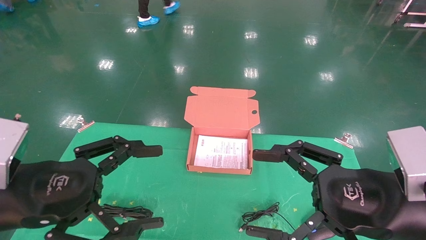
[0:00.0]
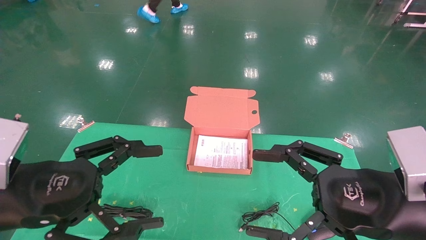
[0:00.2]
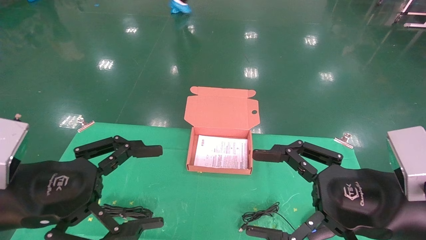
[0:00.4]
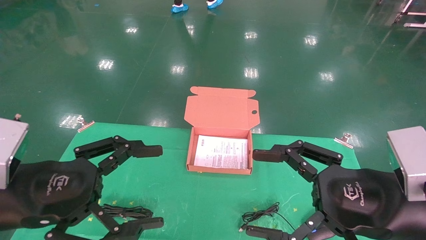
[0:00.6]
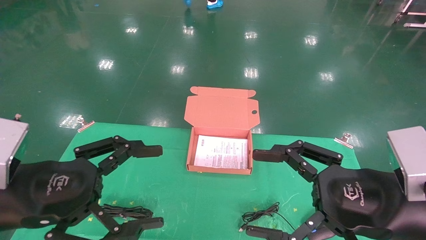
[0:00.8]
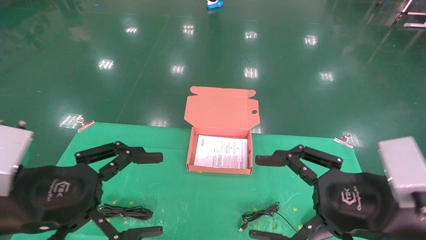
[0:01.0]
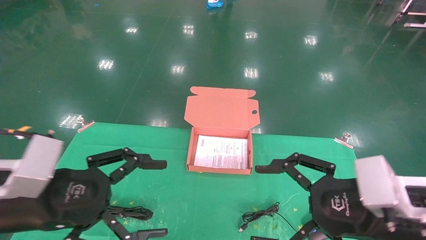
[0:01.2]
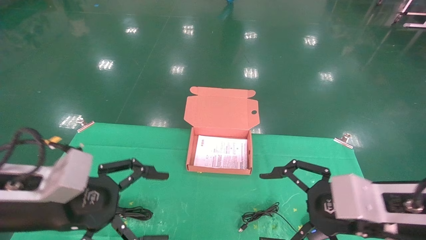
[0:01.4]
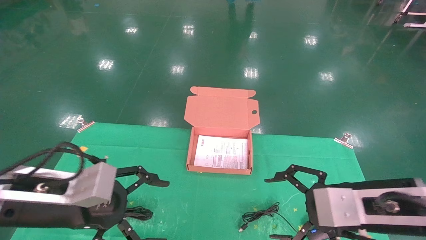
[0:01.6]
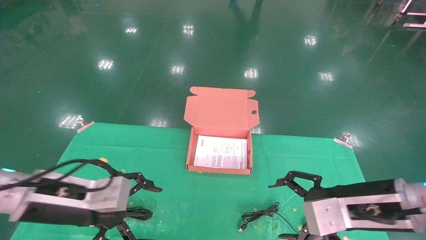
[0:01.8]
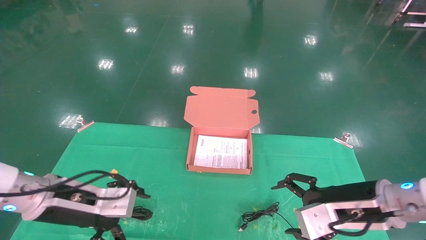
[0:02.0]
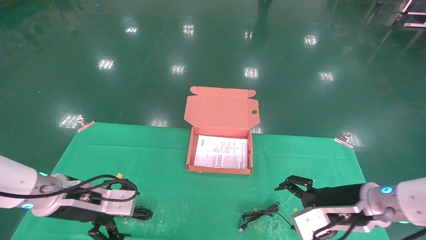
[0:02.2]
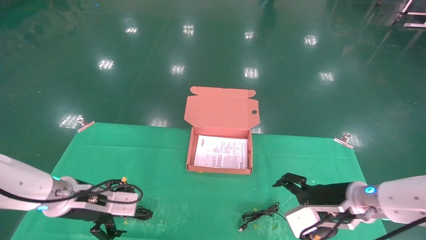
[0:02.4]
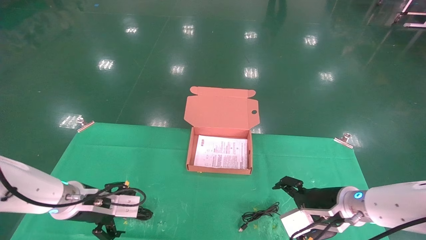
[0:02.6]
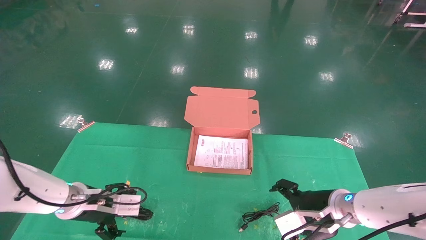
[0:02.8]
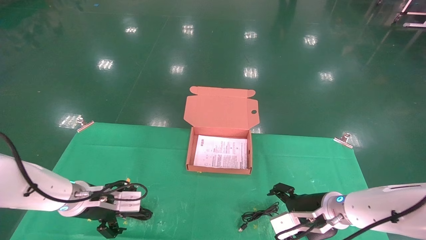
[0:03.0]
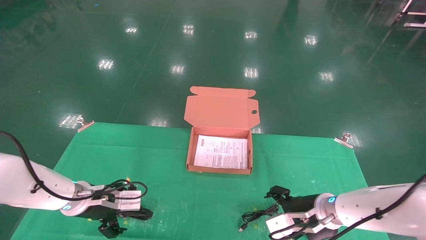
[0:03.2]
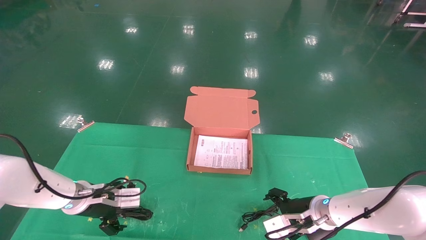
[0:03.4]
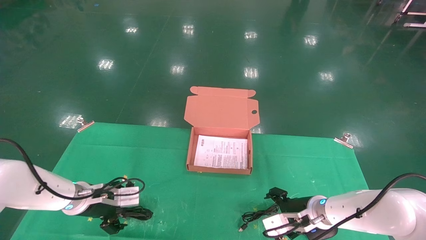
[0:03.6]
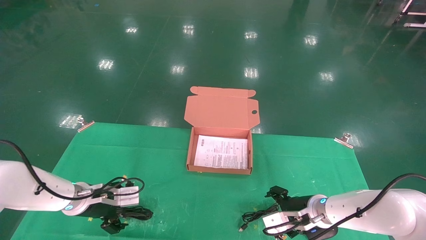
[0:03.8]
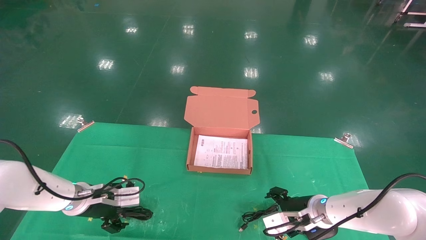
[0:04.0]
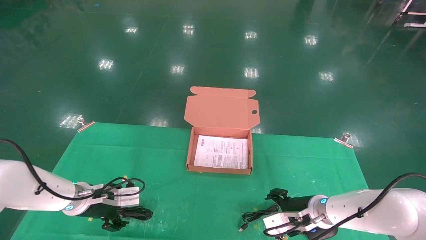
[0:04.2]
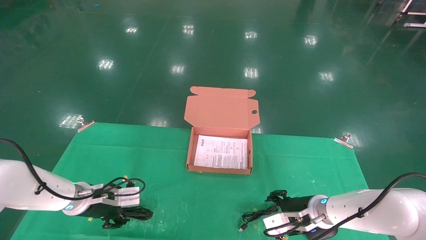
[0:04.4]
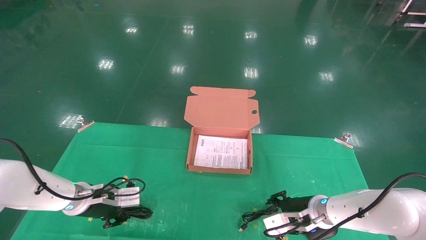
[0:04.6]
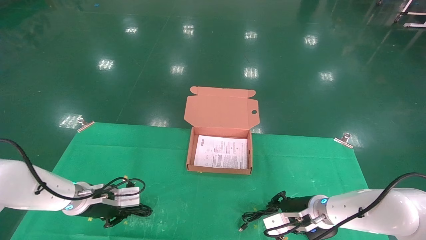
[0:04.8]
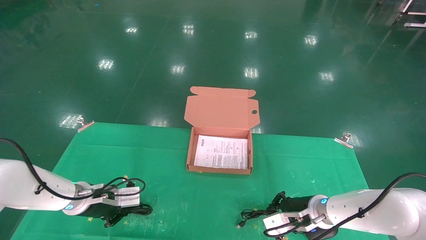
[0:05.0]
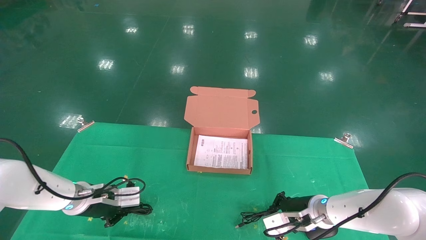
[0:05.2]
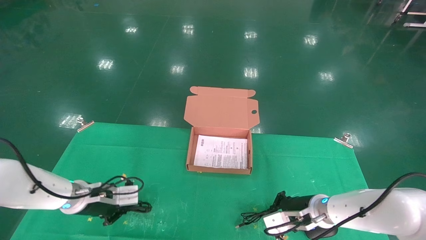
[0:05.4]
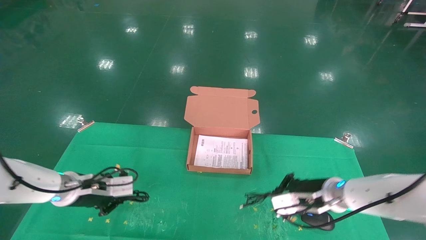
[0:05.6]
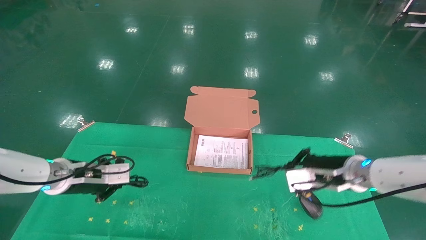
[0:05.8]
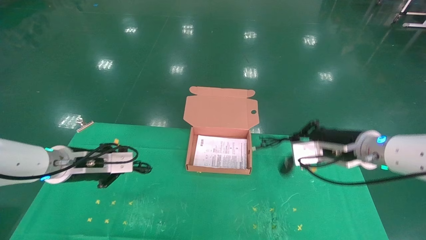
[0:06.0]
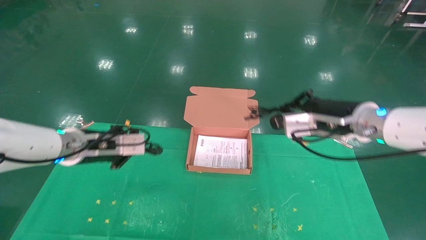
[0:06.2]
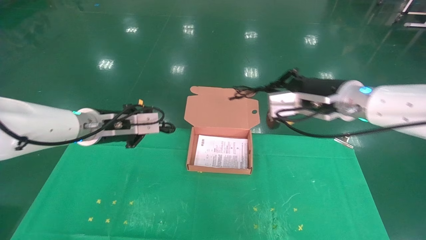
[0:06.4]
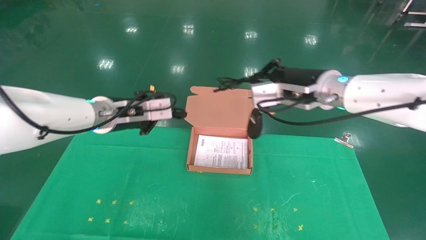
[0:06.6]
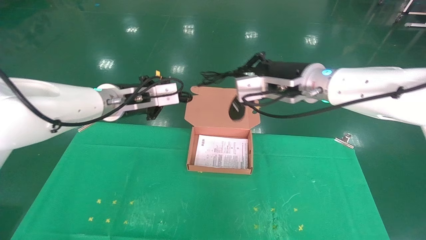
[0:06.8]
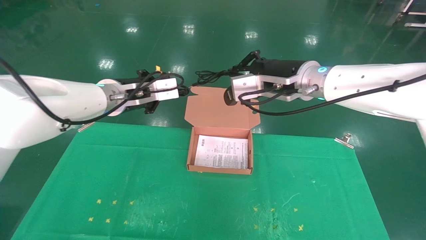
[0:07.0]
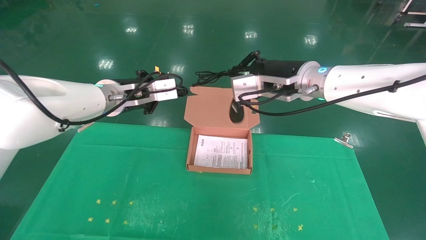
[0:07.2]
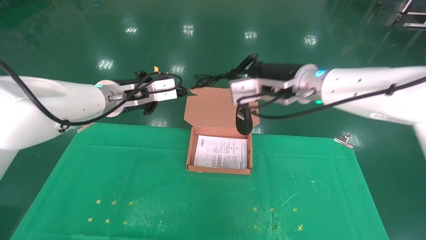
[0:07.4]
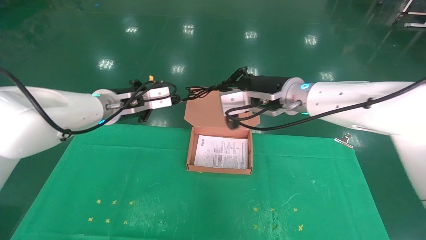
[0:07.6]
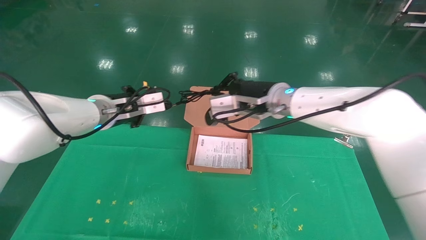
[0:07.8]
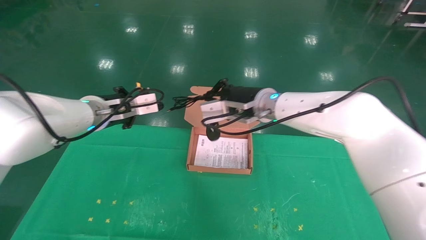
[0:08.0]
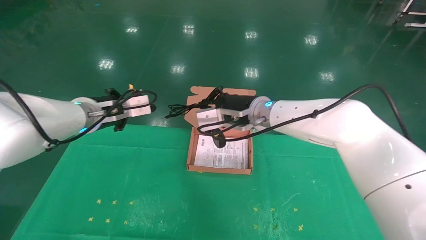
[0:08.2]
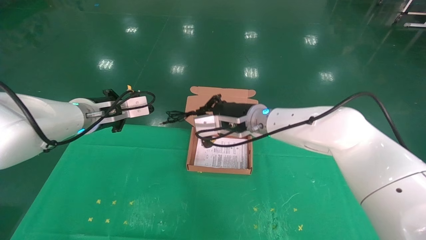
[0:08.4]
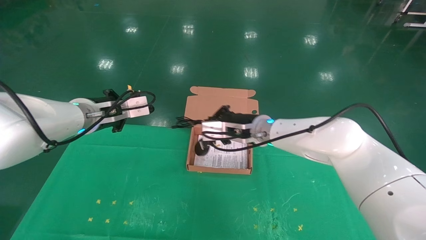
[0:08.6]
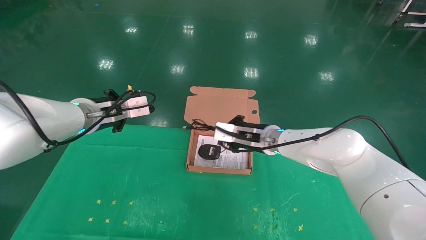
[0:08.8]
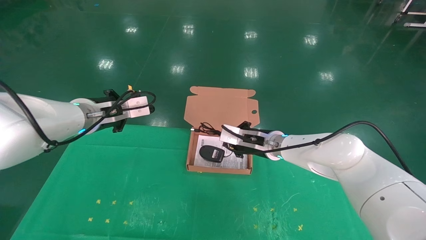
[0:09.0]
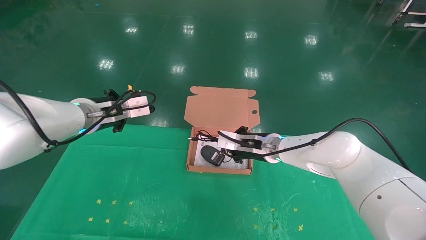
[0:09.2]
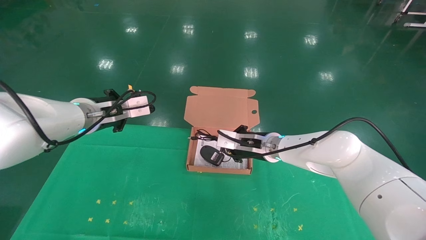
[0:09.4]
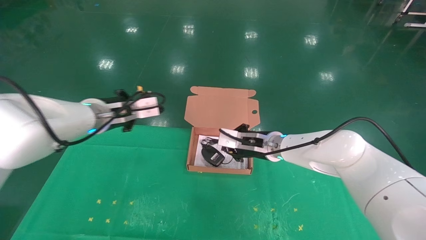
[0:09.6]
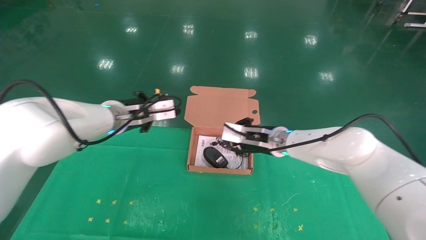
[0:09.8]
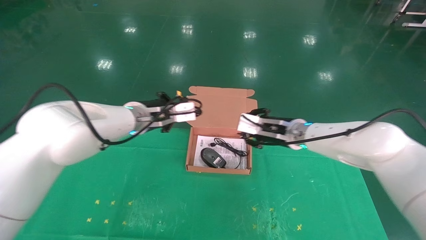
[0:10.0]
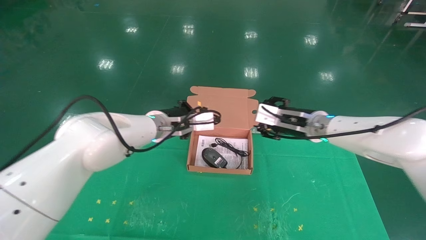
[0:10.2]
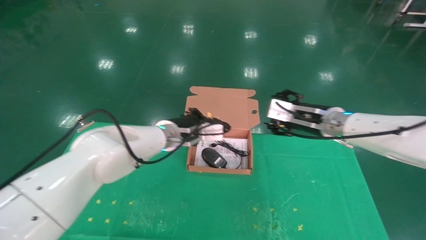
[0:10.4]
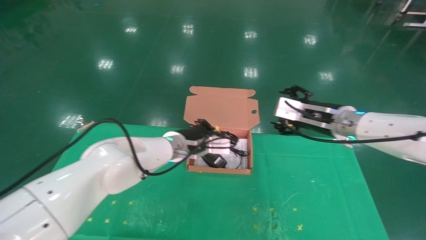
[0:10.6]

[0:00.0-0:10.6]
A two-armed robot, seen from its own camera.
Task of the whole recording: grasp data cable left put into box grasp mouse right put into box.
Step, 0:01.2 to 0:05.0: Grab and pick up both the mouse and power cord from the accessory packaging area at the same time.
0:00.0 to 0:01.6: The two grippers go some 5 cm forward.
0:01.6 to 0:03.0: The grippers both shift forward and downward by roughly 15 cm.
0:03.0 to 0:04.6: The left gripper closes; the right gripper ends up approximately 5 cm from where it was, and closes.
0:04.6 to 0:06.0: The right gripper heads upward, covering some 15 cm, and closes up, while the left gripper travels upward by approximately 10 cm, and closes up.
0:06.0 to 0:07.6: The right gripper heads to the left and upward, covering approximately 20 cm. The left gripper shifts some 15 cm upward and to the right.
0:07.6 to 0:09.0: The right gripper goes approximately 15 cm downward and forward.
0:09.0 to 0:10.6: The right gripper moves to the right and upward, some 15 cm, and opens up; the left gripper travels to the right and downward by approximately 20 cm.

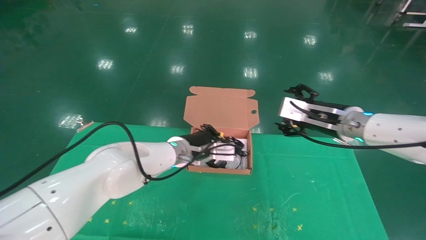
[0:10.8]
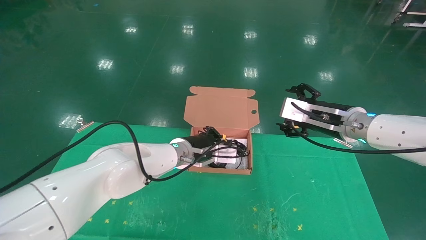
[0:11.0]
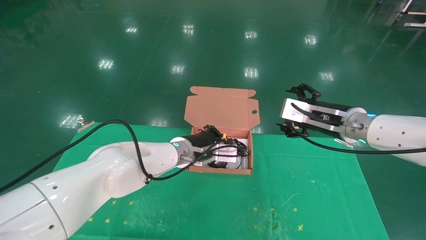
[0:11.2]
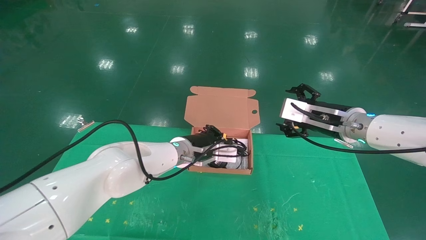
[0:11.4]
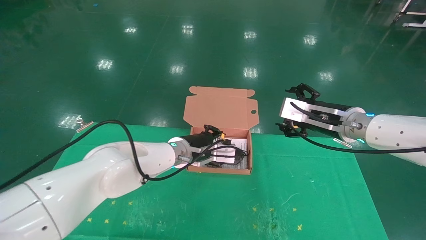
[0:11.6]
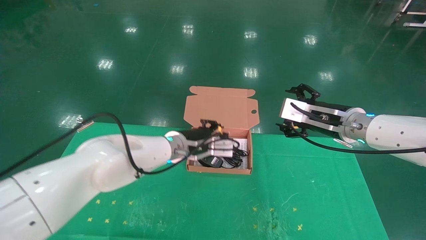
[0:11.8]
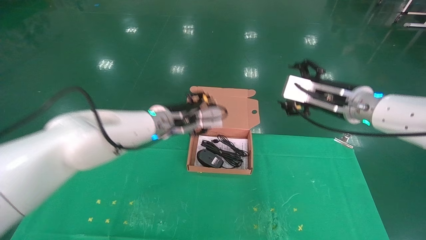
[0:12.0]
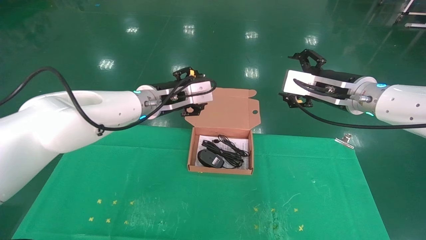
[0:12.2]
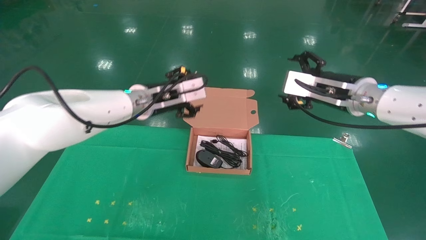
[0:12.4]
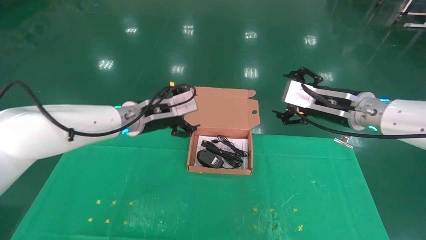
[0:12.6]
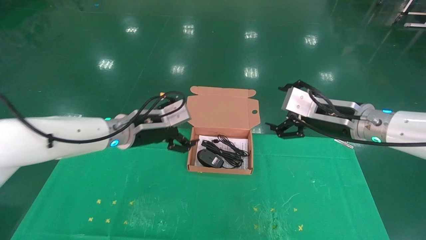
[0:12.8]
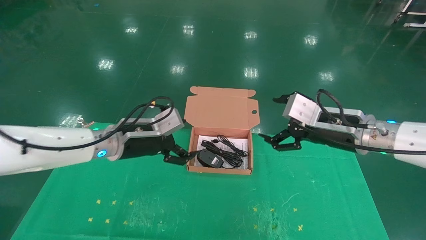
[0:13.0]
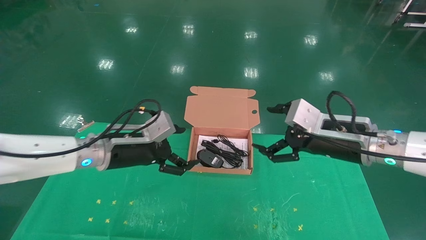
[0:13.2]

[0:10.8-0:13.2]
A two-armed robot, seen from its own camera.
Task of the whole recording: grasp data cable left put into box grasp mouse right put into box.
0:10.8 to 0:12.0: The left gripper shifts by about 5 cm, and opens its fingers.
0:12.0 to 0:13.2: The right gripper moves backward, some 5 cm, while the left gripper is displaced to the left and backward by some 15 cm, and opens its fingers.
